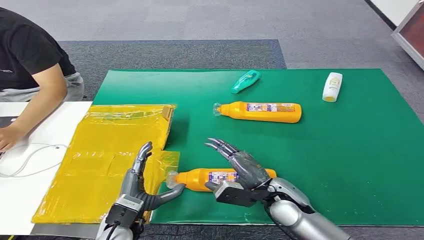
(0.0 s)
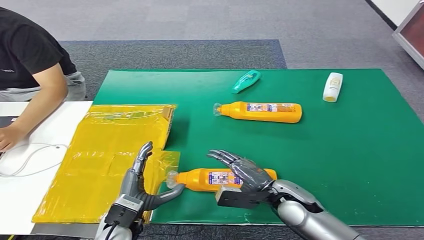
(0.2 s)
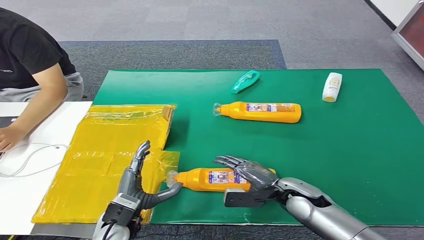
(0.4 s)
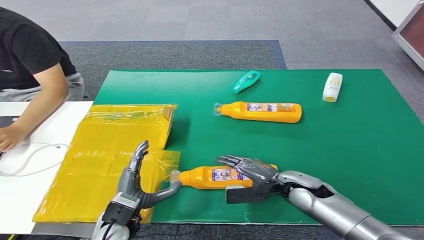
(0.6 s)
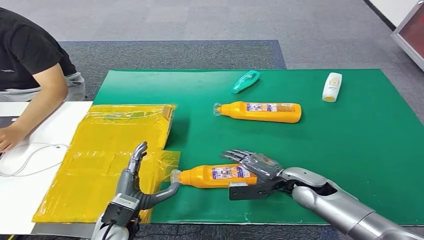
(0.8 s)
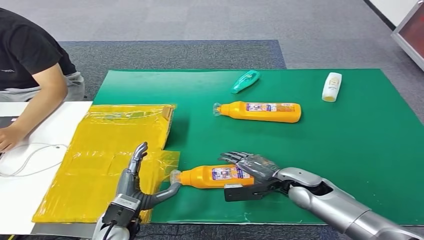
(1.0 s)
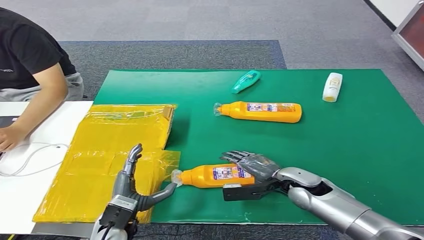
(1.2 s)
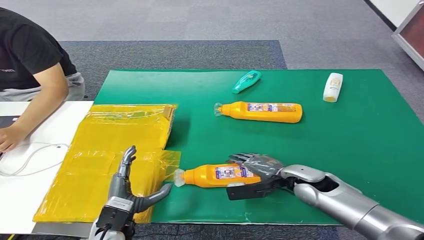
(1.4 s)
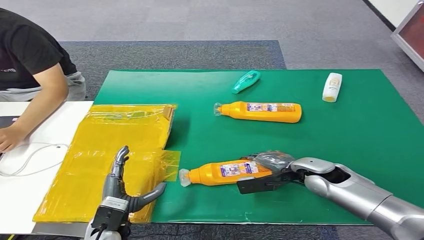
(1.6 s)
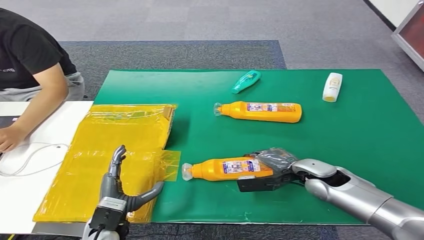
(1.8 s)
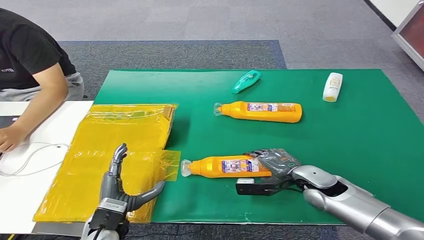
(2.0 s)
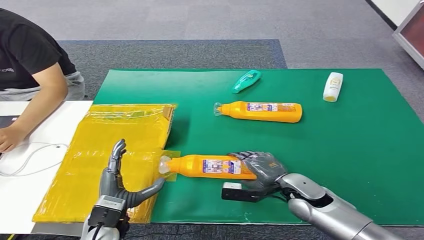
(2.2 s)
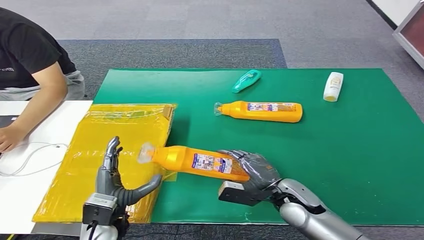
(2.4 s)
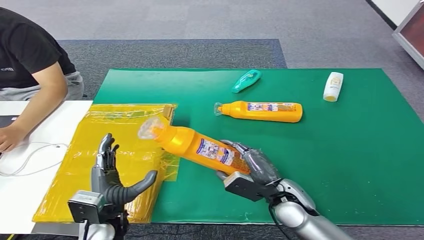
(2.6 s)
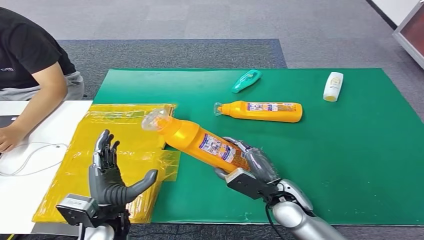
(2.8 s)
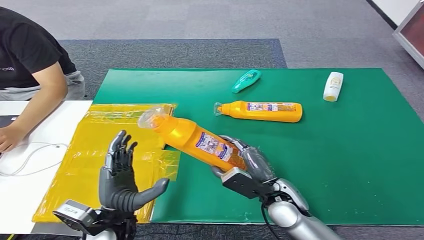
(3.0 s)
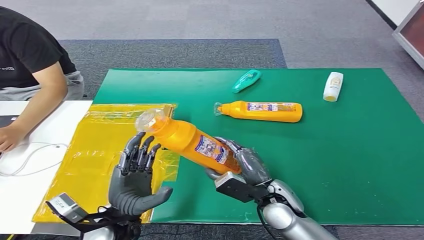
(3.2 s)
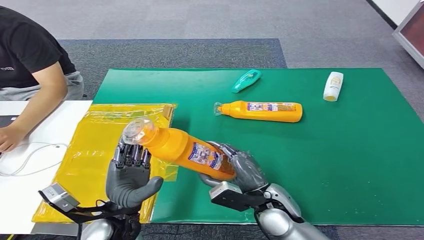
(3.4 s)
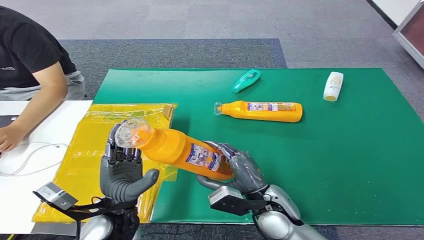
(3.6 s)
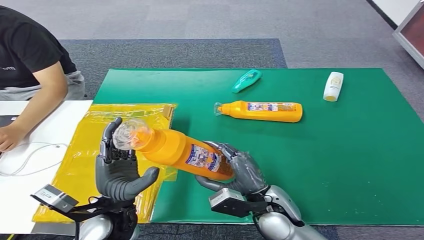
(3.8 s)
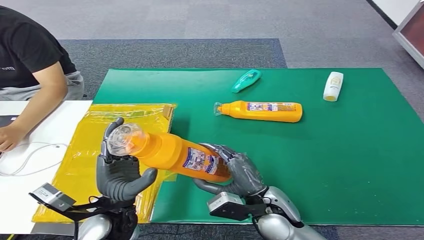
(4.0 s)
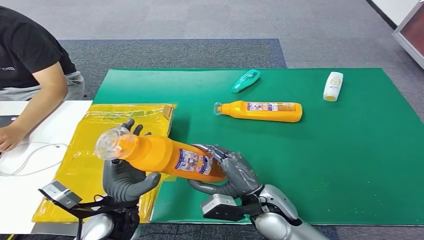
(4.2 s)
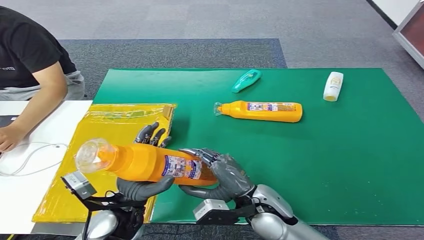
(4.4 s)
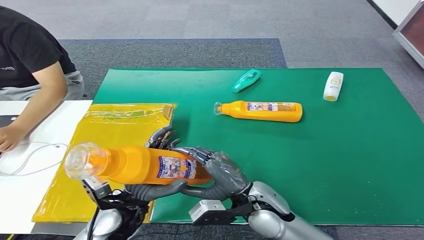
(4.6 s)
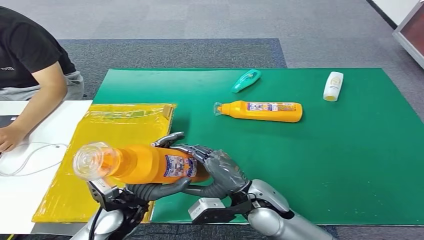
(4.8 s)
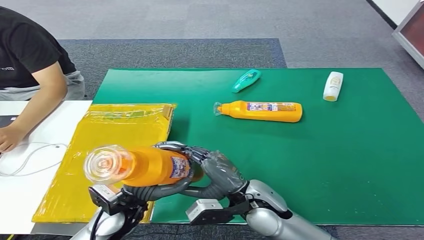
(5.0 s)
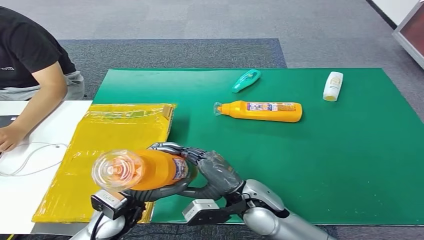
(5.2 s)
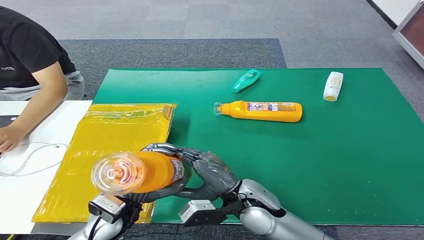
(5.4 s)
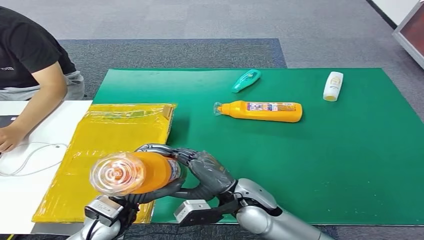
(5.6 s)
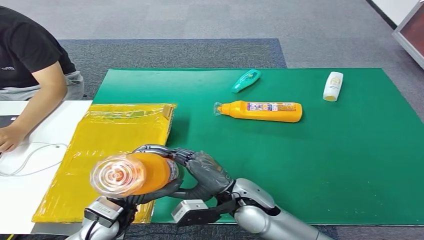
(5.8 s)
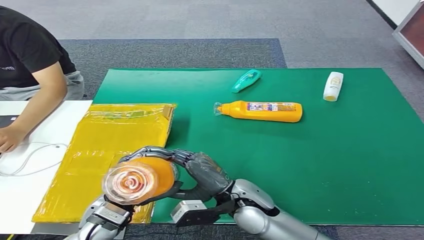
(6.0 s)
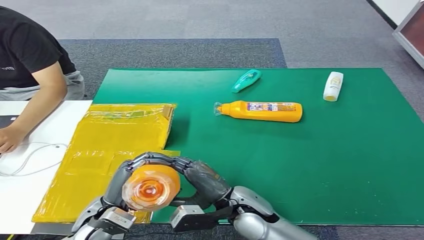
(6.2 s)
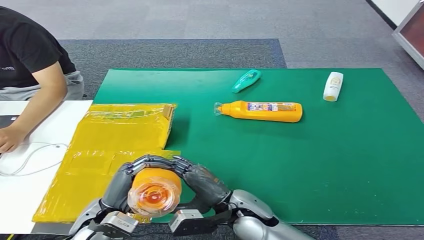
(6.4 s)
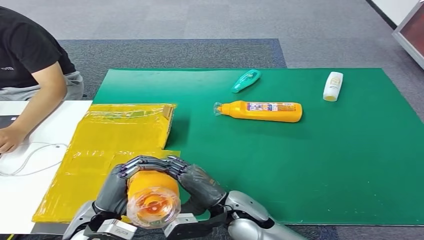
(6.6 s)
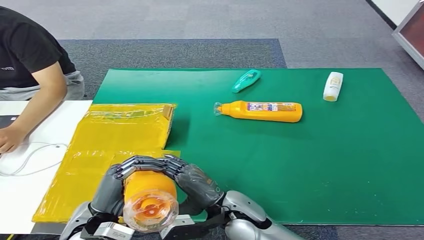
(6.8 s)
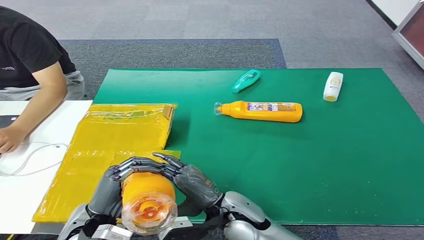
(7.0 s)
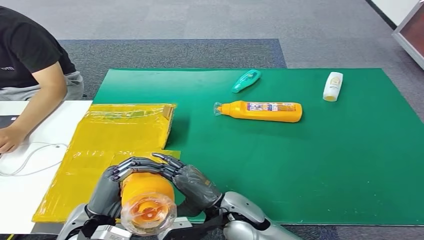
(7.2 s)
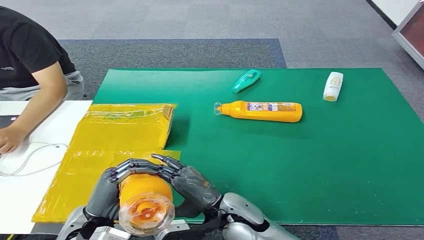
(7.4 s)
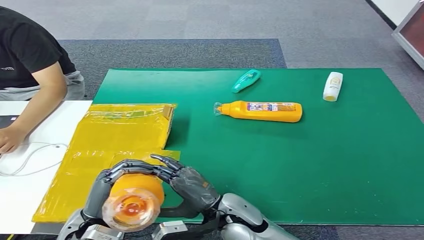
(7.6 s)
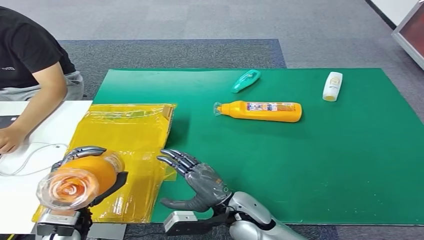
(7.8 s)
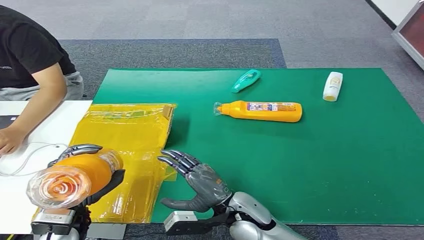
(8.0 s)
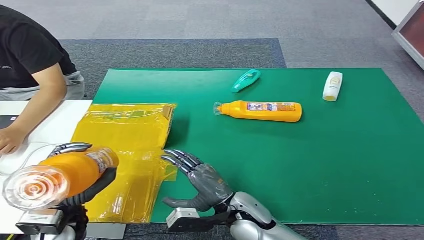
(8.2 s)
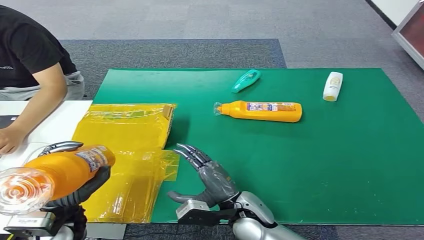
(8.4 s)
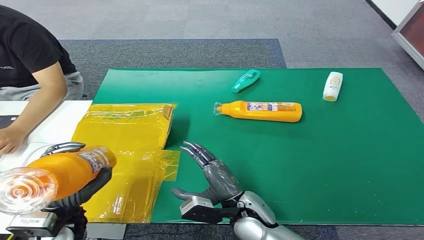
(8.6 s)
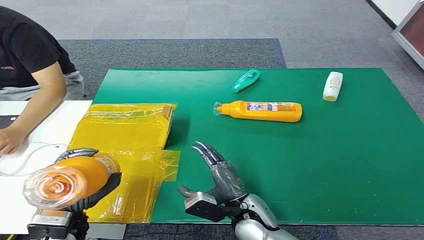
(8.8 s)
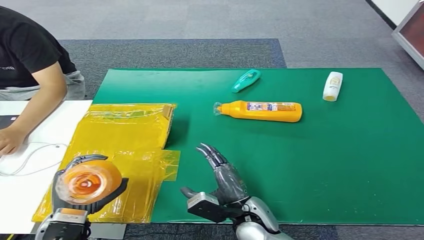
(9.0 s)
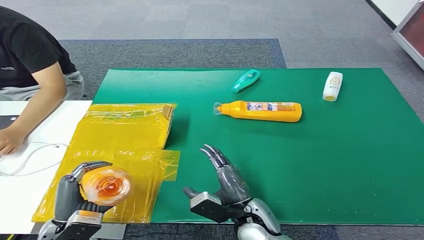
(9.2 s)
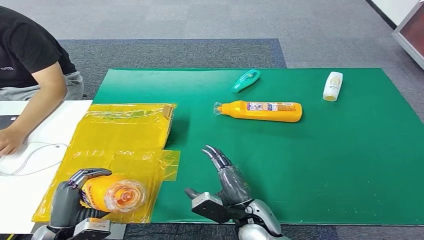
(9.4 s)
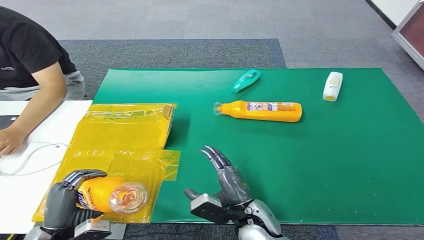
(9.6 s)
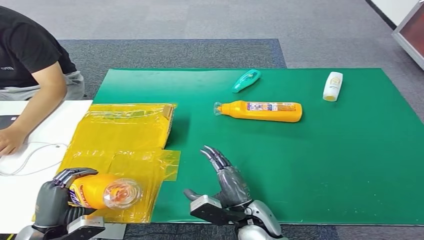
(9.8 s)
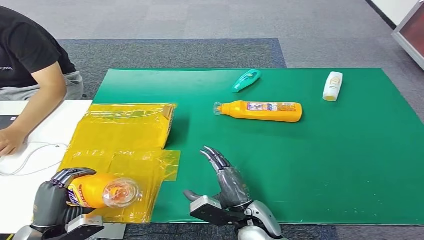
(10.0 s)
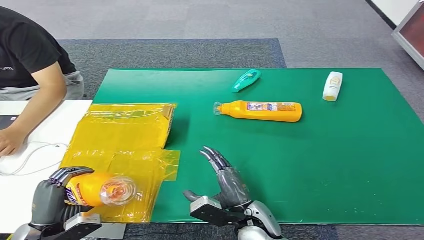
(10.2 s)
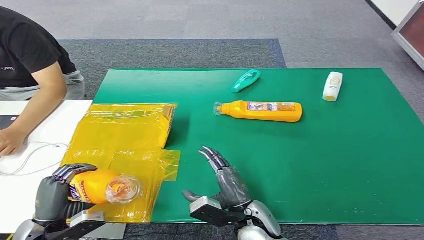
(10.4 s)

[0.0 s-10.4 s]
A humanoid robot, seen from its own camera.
Step, 0.0 to 3.2 s: Pick up the bottle from the table.
Step, 3.4 to 10.4 s: Turn the bottle to the front side.
1.4 to 3.0 s: The left hand shifts roughly 5 cm upward. The right hand goes approximately 10 cm to the left and backward.
3.0 to 4.4 s: The right hand changes place by some 5 cm.
6.0 to 7.4 s: The left hand shifts by some 5 cm.
9.0 to 10.4 s: The left hand shifts about 5 cm to the left.
